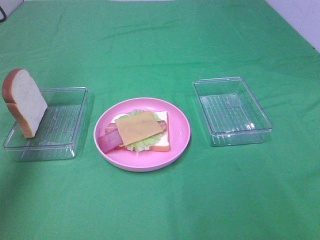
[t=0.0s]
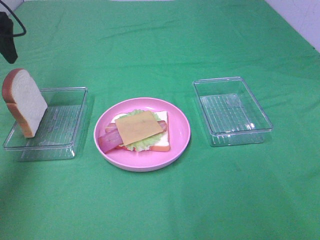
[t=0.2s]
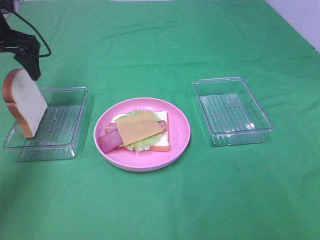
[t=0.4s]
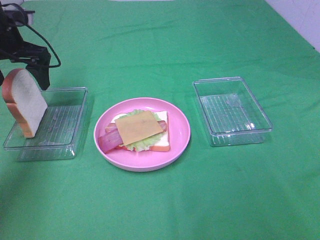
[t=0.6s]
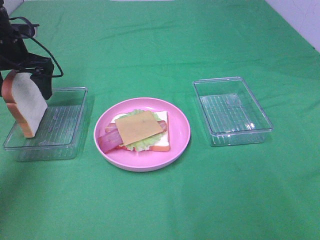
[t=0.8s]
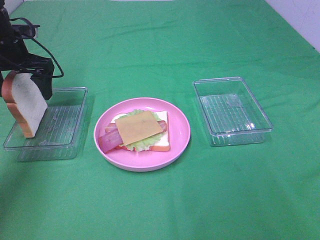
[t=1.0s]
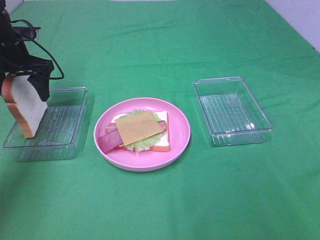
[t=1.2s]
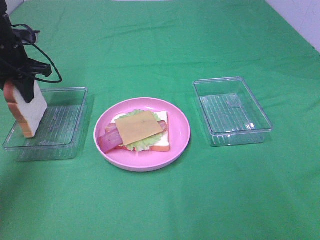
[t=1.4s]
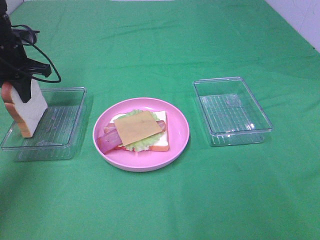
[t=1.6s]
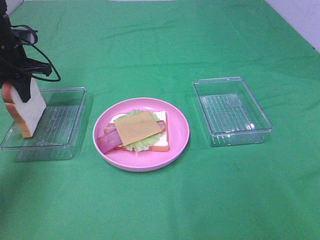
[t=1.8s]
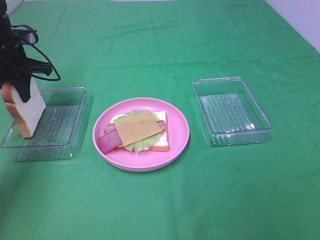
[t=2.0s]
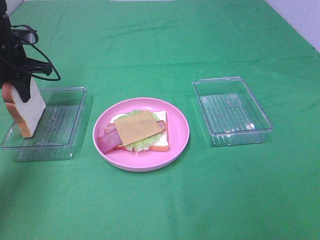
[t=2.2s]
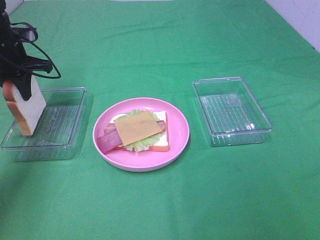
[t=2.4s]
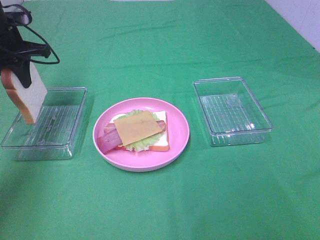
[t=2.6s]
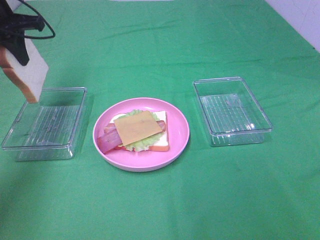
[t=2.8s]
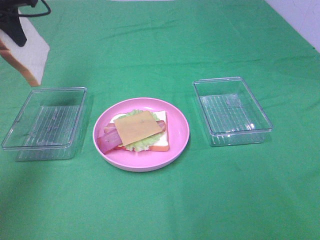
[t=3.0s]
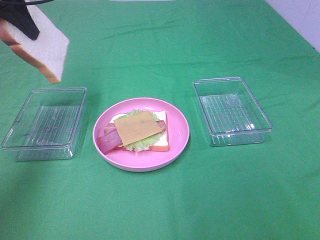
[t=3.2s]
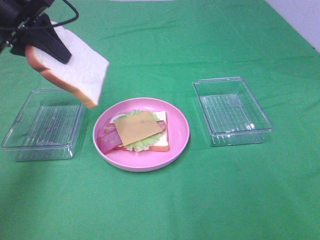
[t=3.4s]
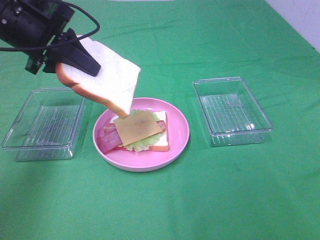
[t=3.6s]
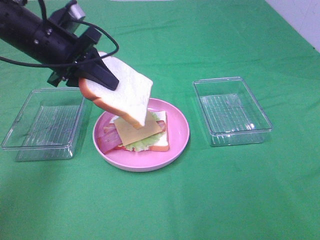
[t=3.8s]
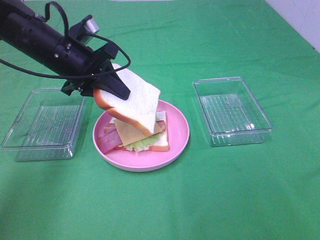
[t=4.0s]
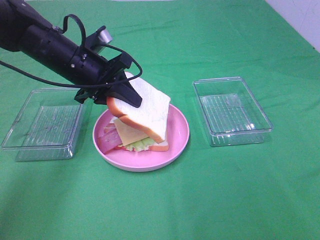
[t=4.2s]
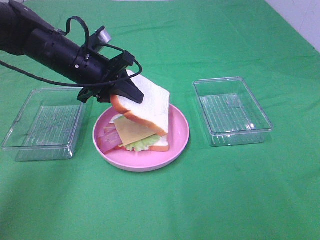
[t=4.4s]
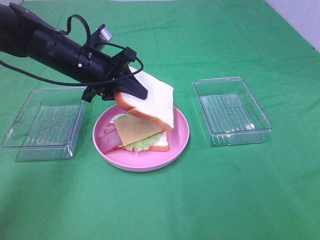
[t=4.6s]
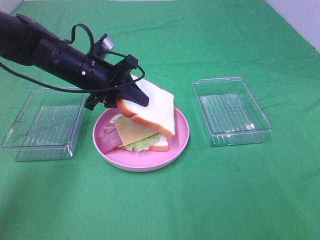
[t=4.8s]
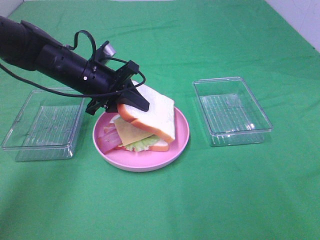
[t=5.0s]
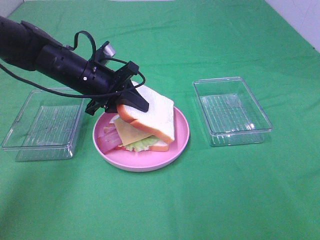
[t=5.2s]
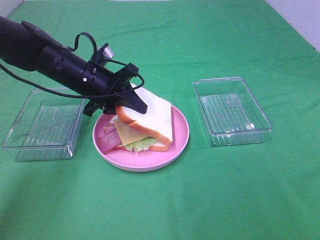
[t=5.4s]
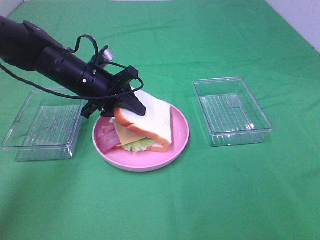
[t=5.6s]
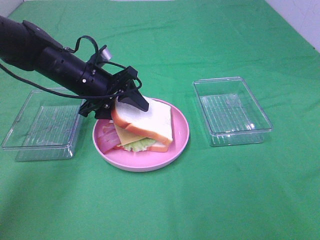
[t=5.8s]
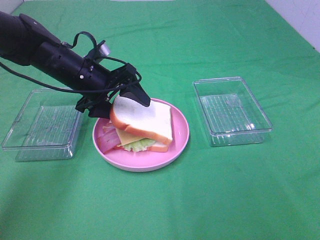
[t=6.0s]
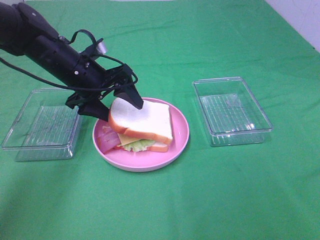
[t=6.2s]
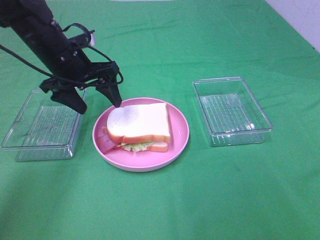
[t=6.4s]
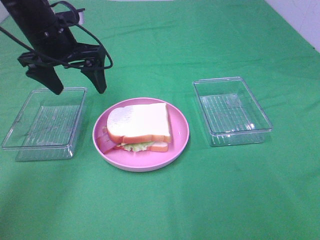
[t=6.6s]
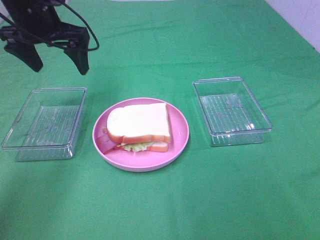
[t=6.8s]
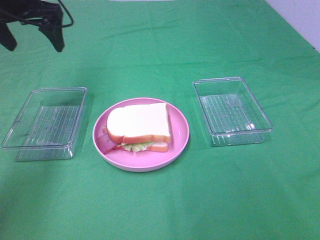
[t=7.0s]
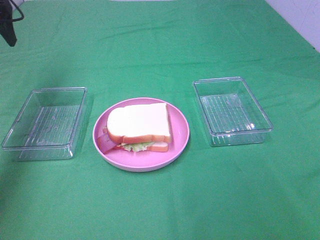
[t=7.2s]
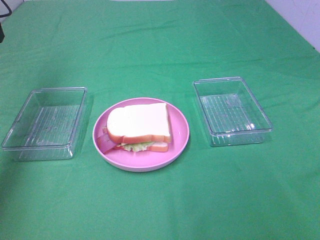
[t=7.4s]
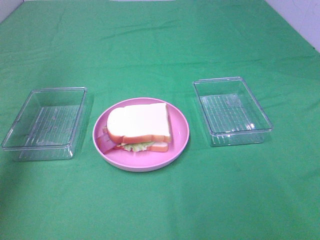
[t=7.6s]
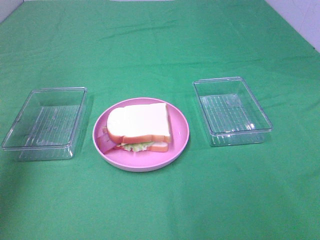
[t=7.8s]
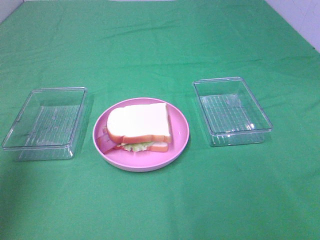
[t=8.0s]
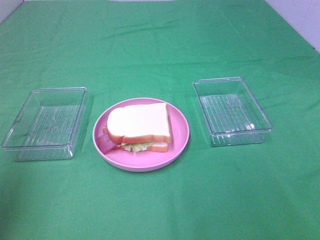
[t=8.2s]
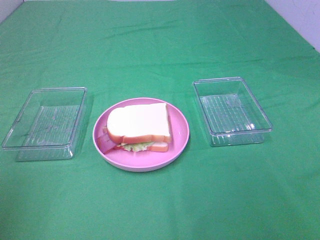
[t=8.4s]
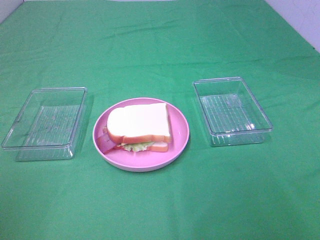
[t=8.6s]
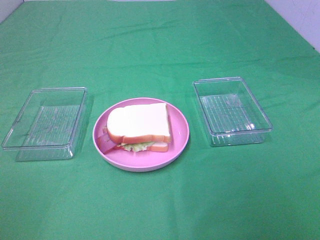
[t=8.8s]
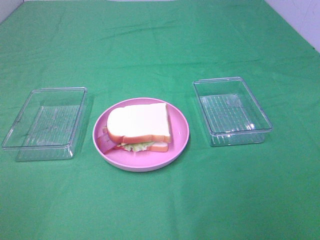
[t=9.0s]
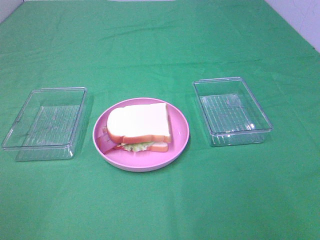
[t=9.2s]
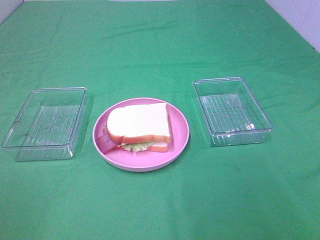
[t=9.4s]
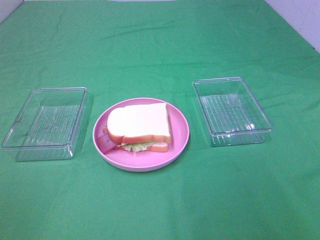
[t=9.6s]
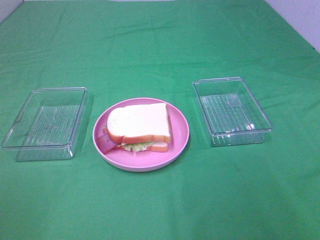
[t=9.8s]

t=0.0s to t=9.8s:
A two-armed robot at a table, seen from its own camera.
Task of the whole recording: Make sandwiches.
Step, t=2.0s to t=6.4s: Left hand:place the bread slice on the cheese slice.
t=0.0s to t=1.4s: The left gripper moves downward and forward, roughly 15 cm, and closes.
t=1.4s to t=2.8s: The left gripper heads upward, covering approximately 10 cm.
t=2.8s to t=4.2s: The left gripper travels to the right and downward by roughly 15 cm.
t=4.2s to t=5.6s: There are only small adjustments of the grippers.
t=5.6s to t=7.0s: The left gripper goes approximately 20 cm upward and to the left, and opens.
t=7.0s to t=8.4s: The left gripper heads backward, covering approximately 35 cm.

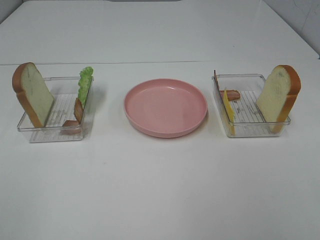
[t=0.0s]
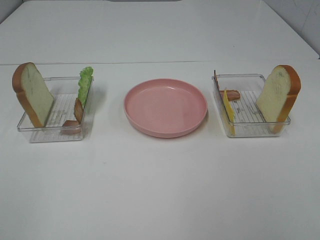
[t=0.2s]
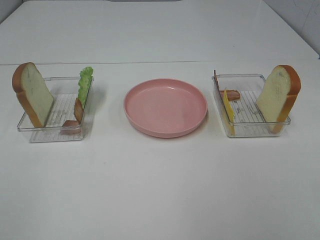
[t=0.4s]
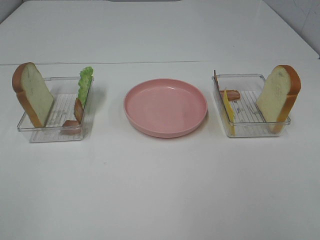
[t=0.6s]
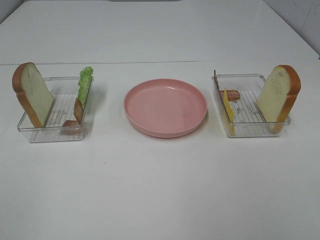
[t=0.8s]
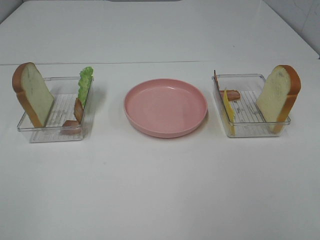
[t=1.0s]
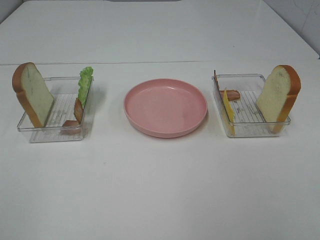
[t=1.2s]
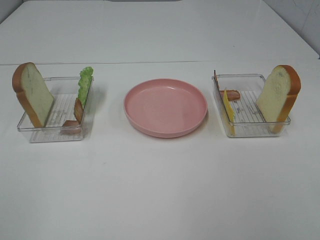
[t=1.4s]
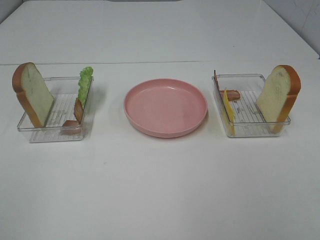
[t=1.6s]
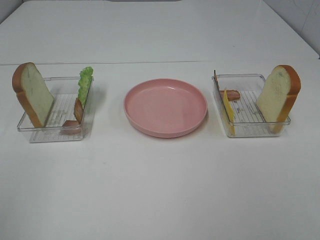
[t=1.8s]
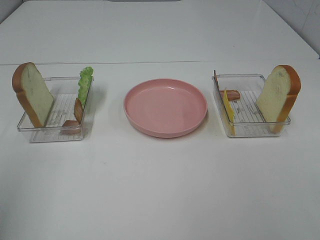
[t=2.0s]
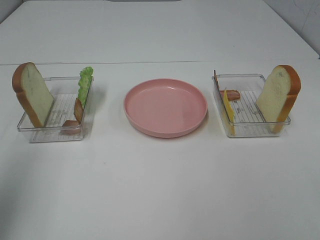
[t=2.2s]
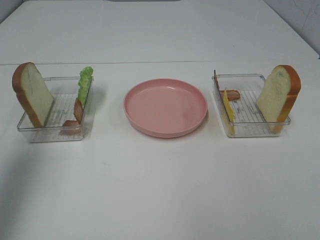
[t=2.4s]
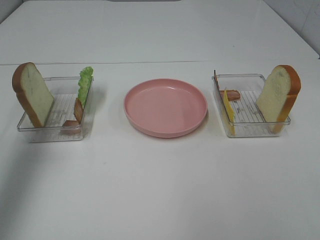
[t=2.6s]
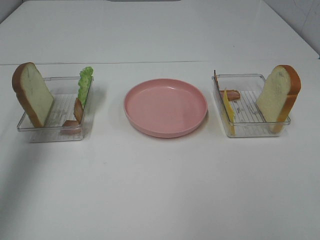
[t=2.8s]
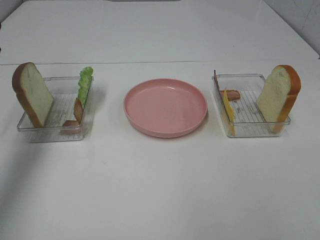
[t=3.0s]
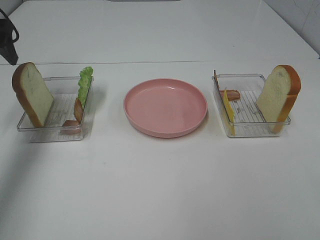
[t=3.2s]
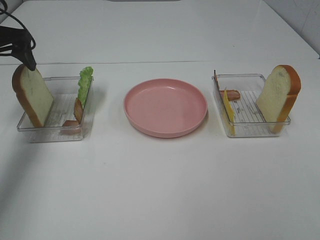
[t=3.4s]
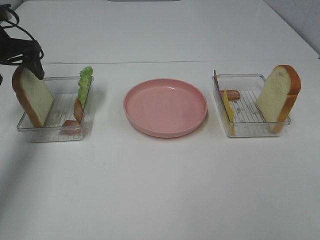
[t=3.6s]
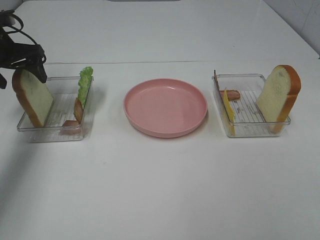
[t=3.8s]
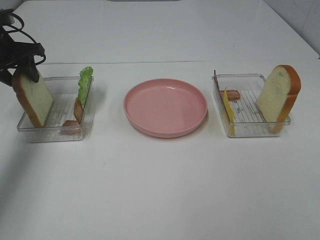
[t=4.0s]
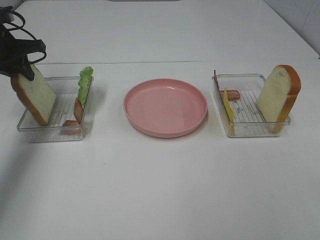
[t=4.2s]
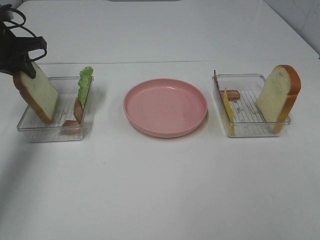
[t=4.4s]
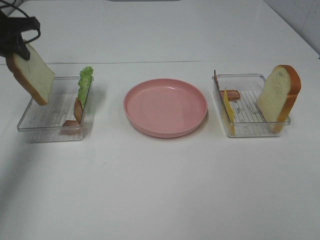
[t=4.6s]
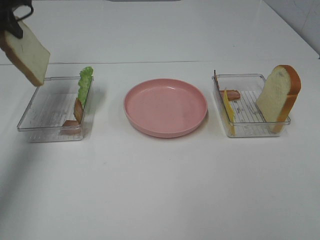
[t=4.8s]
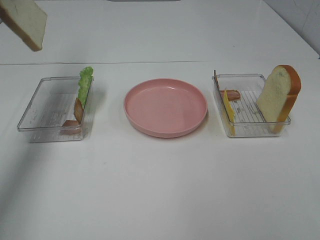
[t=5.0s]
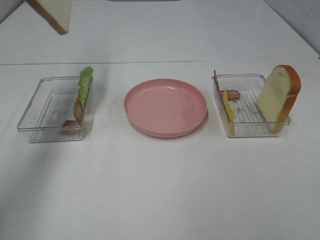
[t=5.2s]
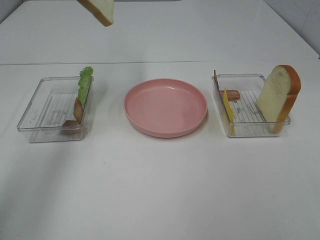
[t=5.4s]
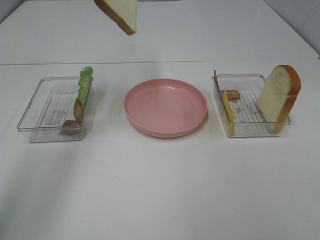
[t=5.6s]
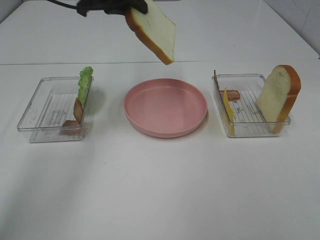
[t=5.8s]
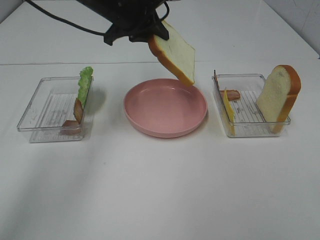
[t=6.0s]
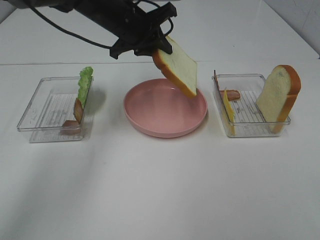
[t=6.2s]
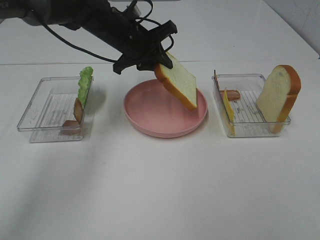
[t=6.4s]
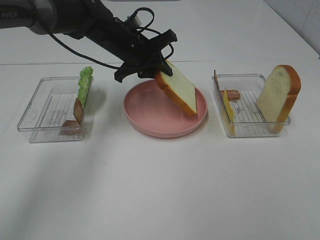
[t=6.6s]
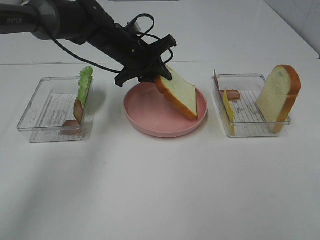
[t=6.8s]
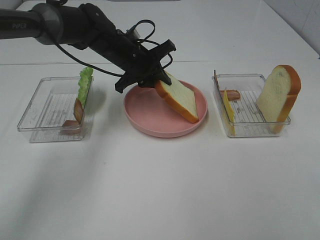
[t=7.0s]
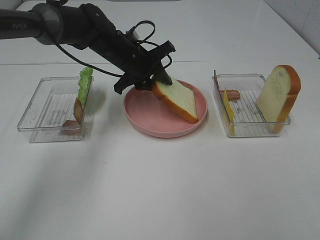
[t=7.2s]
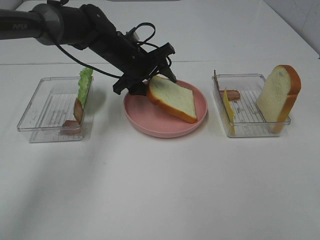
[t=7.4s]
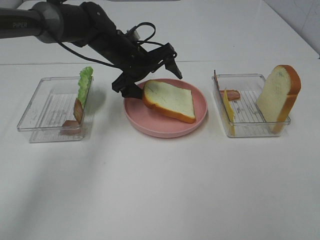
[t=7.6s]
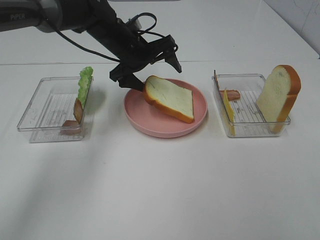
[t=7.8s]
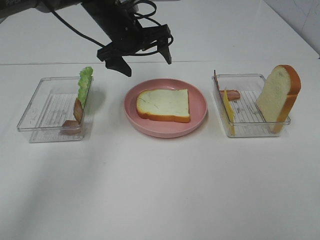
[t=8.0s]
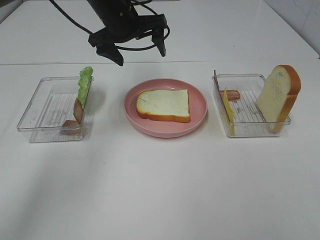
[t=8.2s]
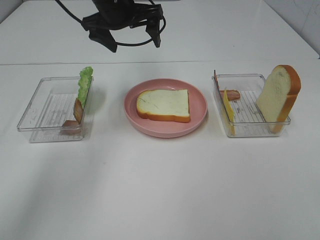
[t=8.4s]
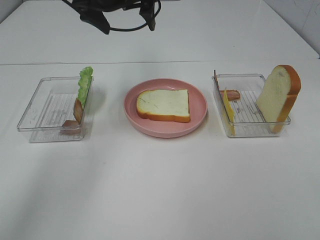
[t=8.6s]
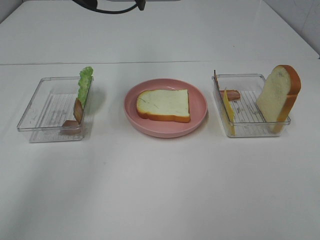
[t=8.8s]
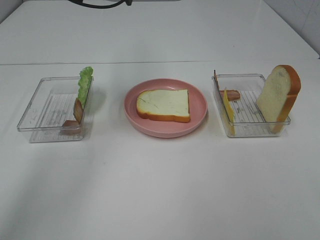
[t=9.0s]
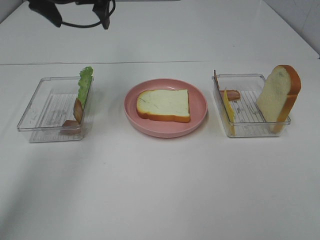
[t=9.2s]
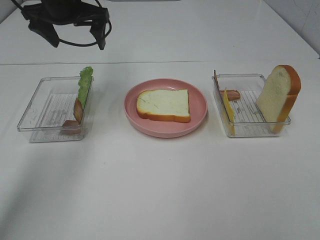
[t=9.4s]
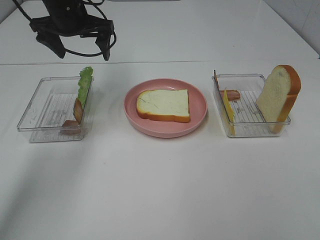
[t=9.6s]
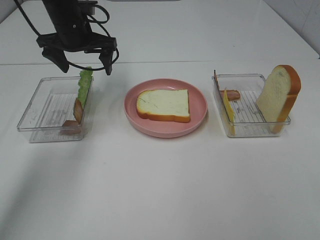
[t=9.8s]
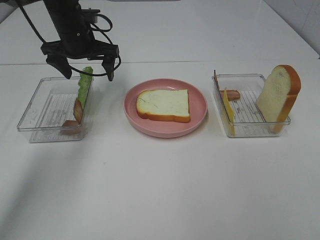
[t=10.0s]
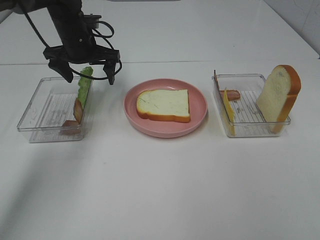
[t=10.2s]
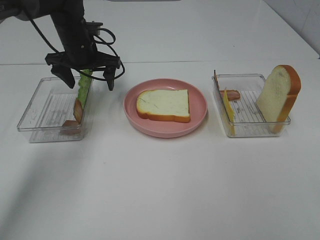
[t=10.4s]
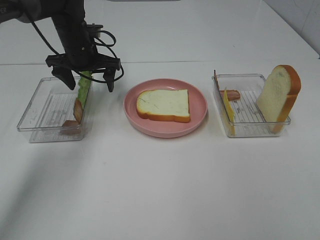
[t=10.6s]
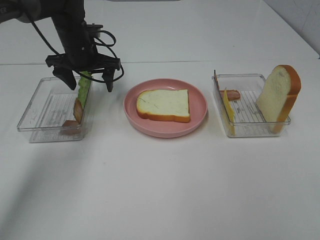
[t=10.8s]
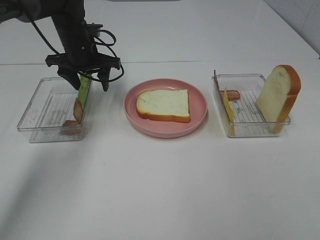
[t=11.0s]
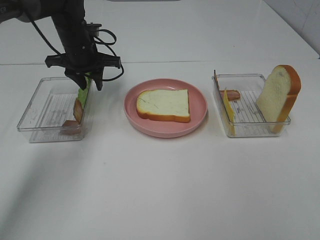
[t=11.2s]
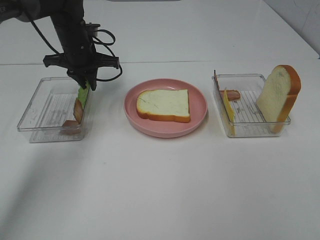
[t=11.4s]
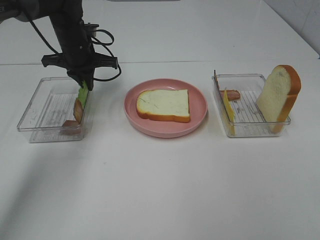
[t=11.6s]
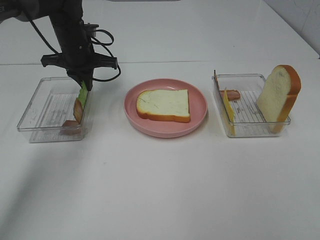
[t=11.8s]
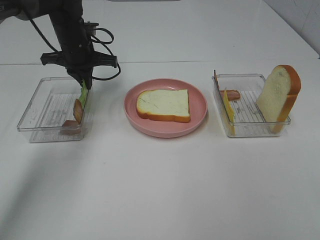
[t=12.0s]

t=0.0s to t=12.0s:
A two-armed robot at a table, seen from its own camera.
Task of the whole recording: Make sandwiches.
Step, t=0.0s to t=4.2s: Left hand:grab the bread slice.
Step, t=4.4s to t=8.0s: Left hand:place the bread slice on the plate.
Step, t=8.2s to t=11.8s: Left hand:grab the lettuce slice.
t=1.6s to t=3.0s: The left gripper shifts some 35 cm forward.
t=3.0s to t=4.4s: The left gripper heads downward and forward, covering some 15 cm, and closes up.
t=4.4s to t=6.0s: The left gripper goes roughly 25 cm to the right.
t=6.0s to t=7.6s: The left gripper is displaced downward by approximately 10 cm, and opens its fingers.
t=7.6s to t=9.0s: The left gripper shifts roughly 20 cm upward.
t=9.0s to t=10.4s: The left gripper shifts roughly 20 cm downward.
t=10.4s to t=12.0s: The left gripper closes up.
